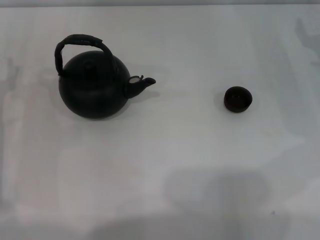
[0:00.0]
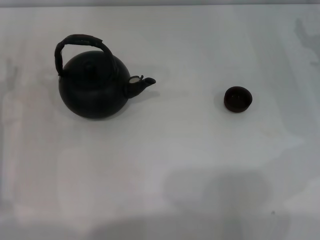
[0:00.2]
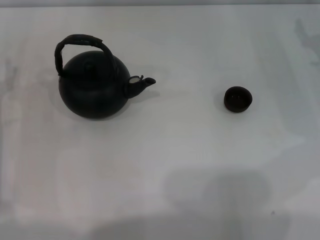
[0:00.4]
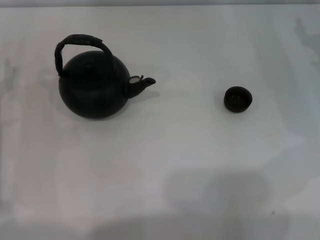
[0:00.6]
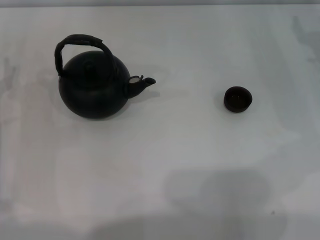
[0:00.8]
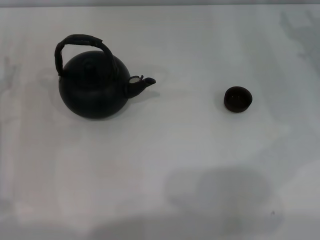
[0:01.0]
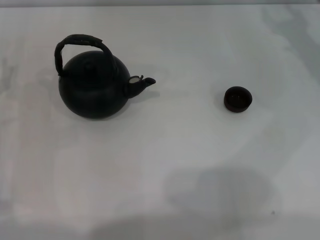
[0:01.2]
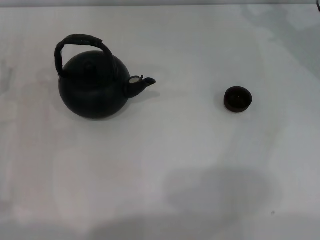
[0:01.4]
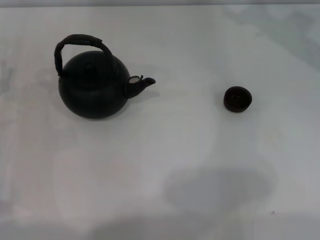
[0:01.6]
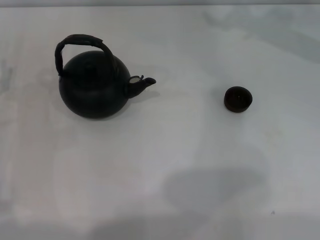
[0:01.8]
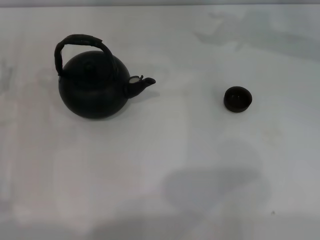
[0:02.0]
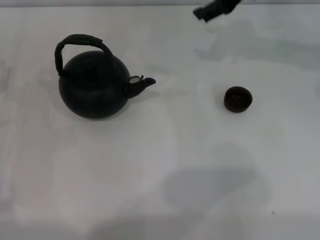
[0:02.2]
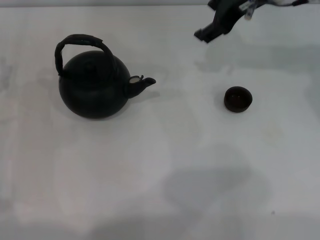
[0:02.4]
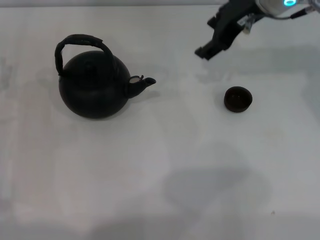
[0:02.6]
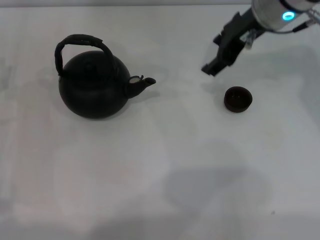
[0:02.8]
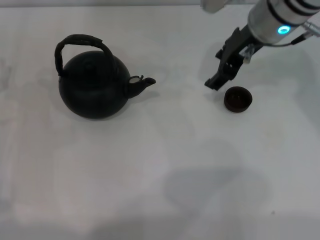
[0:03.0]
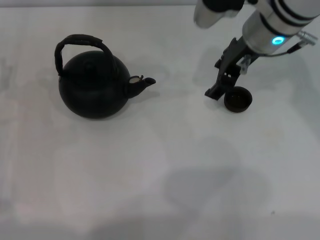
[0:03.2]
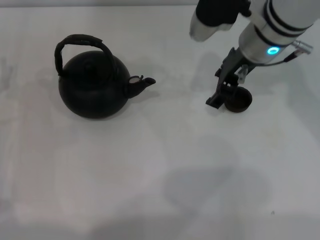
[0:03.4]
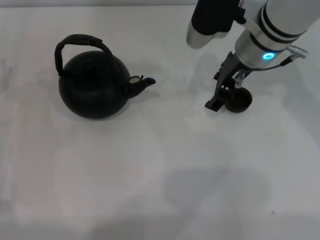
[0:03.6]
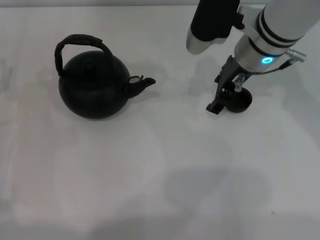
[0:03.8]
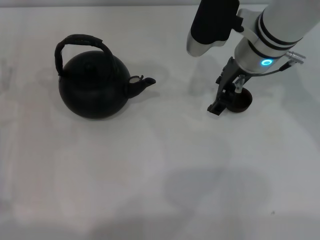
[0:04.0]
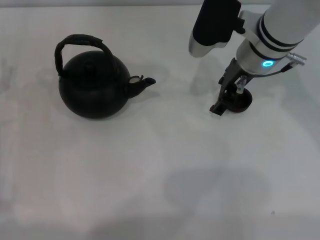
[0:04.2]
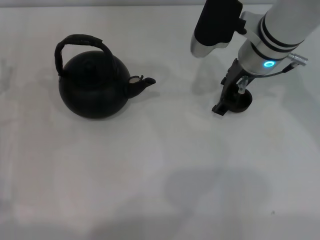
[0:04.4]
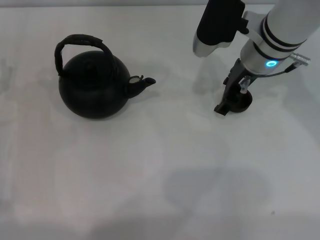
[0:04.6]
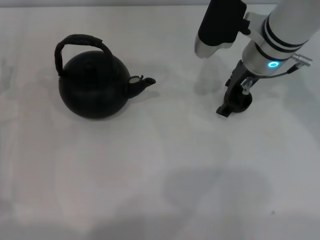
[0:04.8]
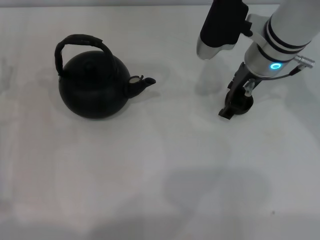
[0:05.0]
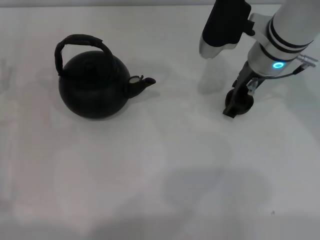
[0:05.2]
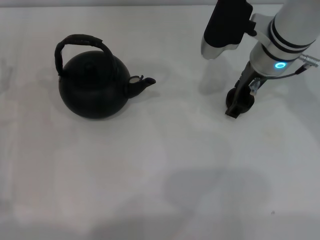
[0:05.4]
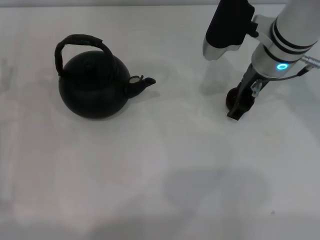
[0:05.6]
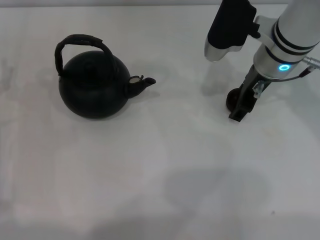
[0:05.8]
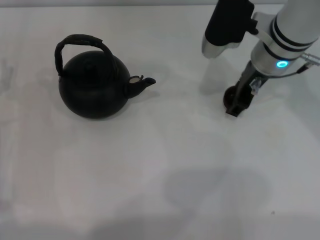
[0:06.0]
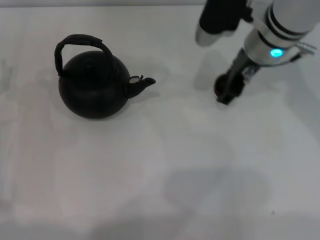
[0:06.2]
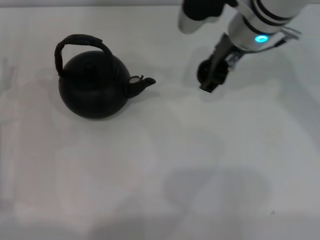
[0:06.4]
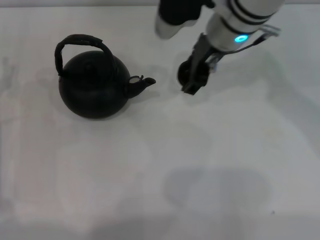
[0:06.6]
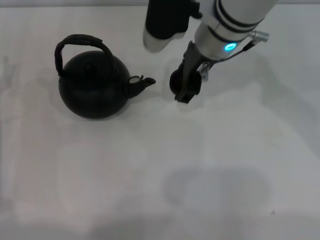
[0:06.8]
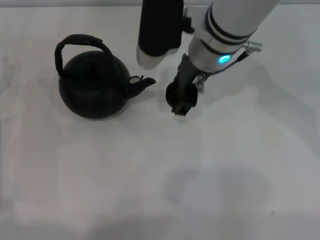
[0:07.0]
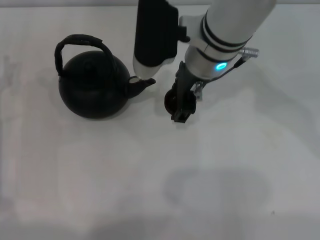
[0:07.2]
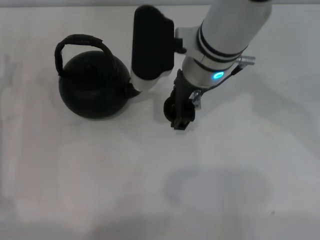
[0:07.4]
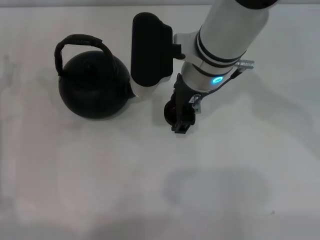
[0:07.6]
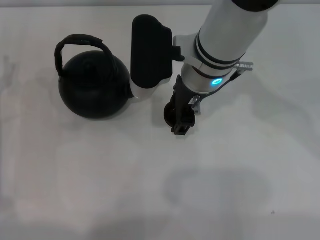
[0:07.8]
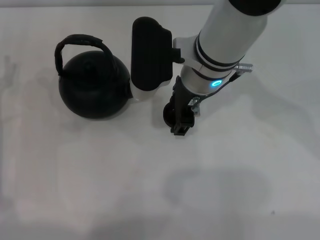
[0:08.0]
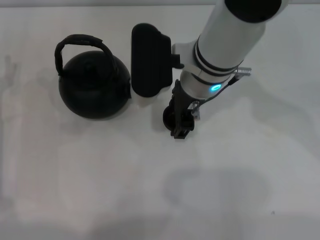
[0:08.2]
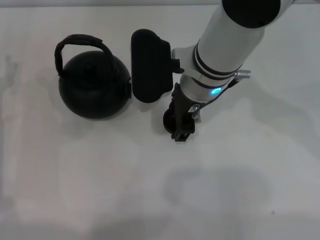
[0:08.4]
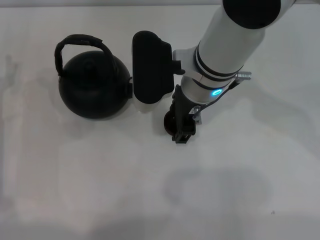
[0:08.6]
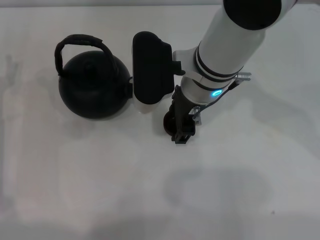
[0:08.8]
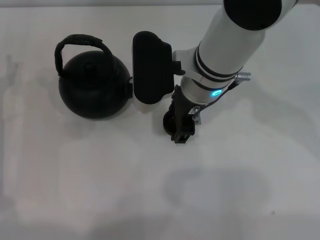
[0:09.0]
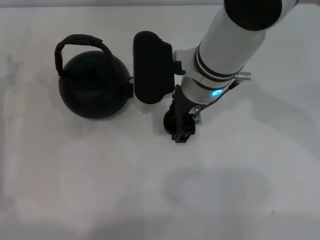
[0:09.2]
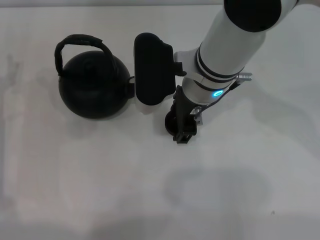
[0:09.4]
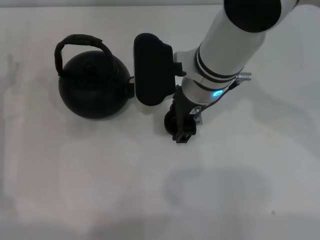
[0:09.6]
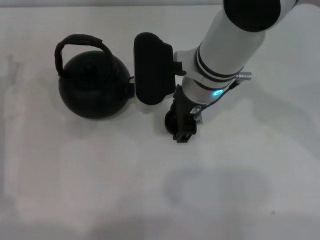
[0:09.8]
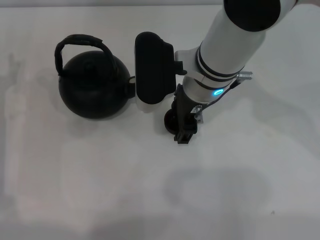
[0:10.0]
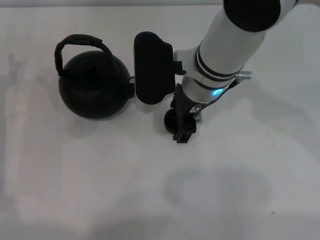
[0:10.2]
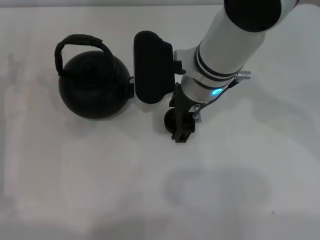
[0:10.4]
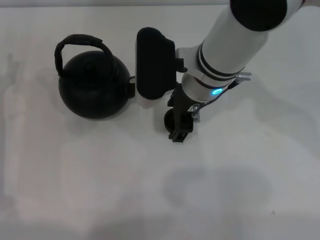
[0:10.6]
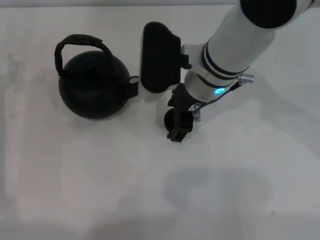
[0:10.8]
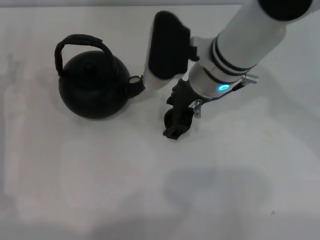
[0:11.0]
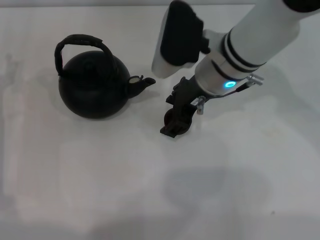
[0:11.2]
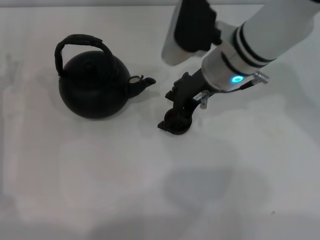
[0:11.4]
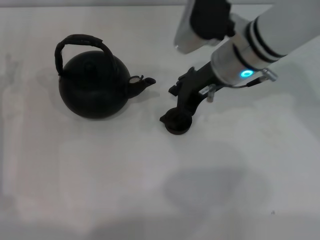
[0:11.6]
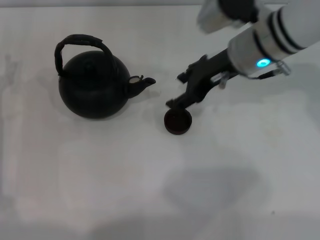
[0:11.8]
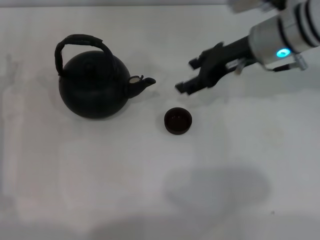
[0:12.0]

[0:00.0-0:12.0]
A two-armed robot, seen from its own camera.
Task of the whole recording: Grasp the handle of the teapot with one hand and pour tea into the teacup.
Step, 0:00.0 to 0:06.0: Pick up the teacup with the right gripper.
Step, 0:06.4 to 0:11.8: Place the teacup in the center of view with the right gripper.
0:01.6 to 0:03.0: The right gripper goes some 10 cm to the left and backward.
0:03.0 to 0:04.4: The right gripper goes roughly 5 cm downward.
0:04.4 to 0:06.0: The grippers stay close to where they were, moving slightly.
0:06.0 to 0:07.6: The right gripper goes approximately 10 cm to the left, and closes its fingers.
0:07.6 to 0:09.0: The grippers make only small movements.
0:09.0 to 0:10.4: The right gripper opens.
0:10.4 to 0:12.0: The right gripper is displaced to the right by some 10 cm.

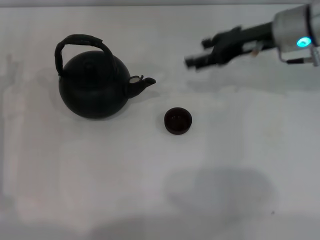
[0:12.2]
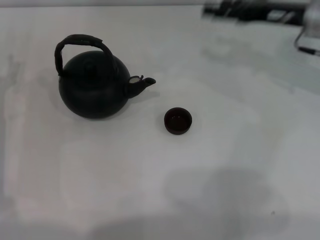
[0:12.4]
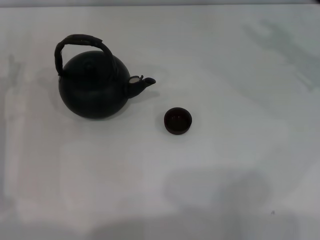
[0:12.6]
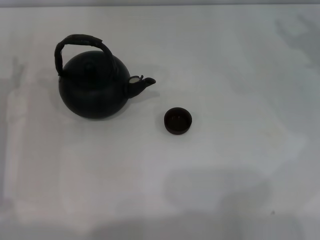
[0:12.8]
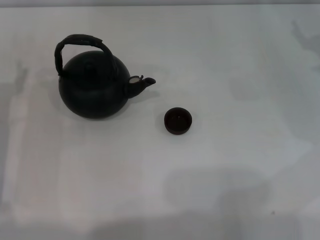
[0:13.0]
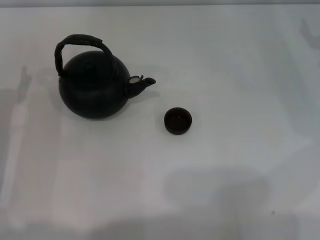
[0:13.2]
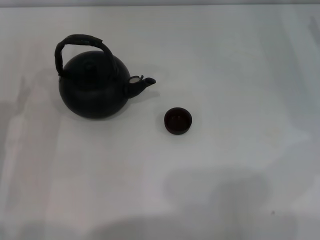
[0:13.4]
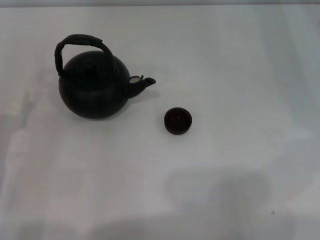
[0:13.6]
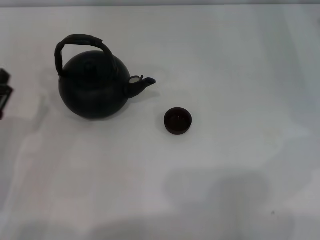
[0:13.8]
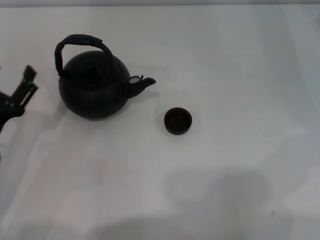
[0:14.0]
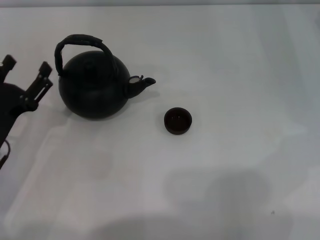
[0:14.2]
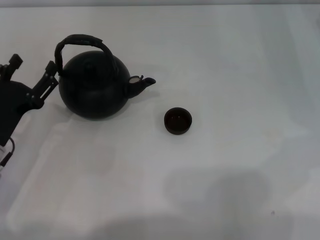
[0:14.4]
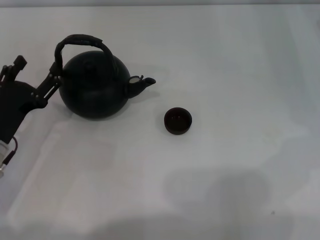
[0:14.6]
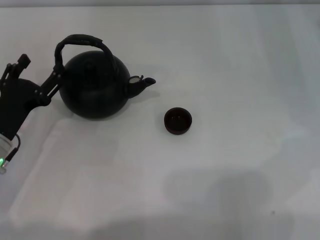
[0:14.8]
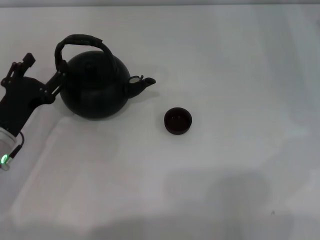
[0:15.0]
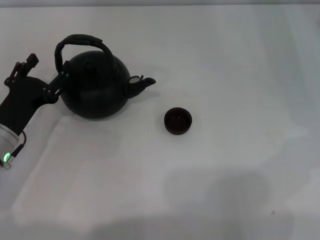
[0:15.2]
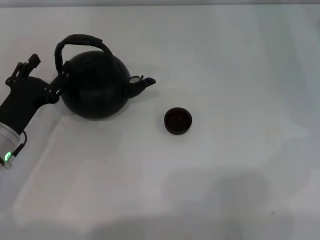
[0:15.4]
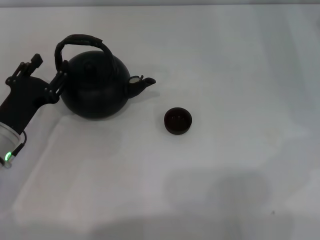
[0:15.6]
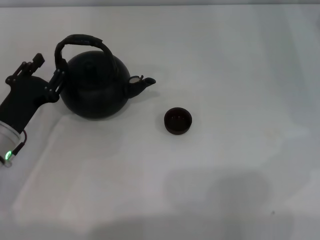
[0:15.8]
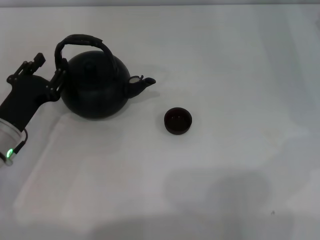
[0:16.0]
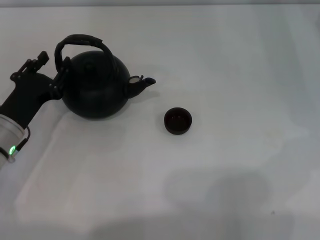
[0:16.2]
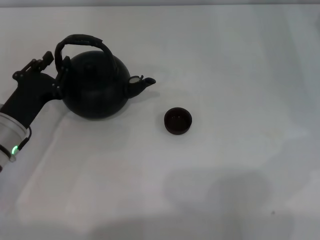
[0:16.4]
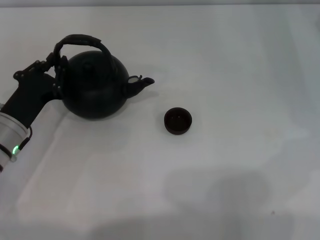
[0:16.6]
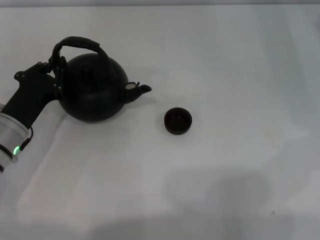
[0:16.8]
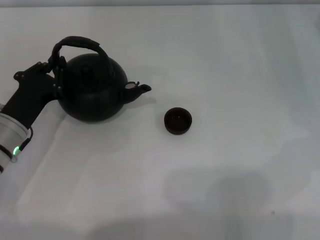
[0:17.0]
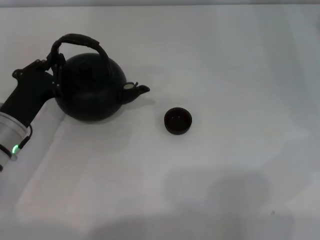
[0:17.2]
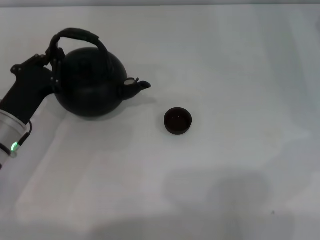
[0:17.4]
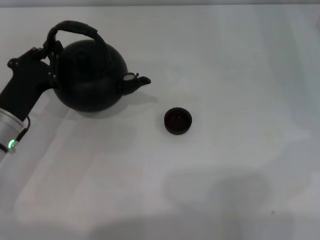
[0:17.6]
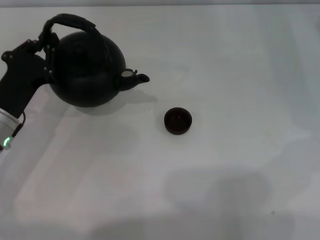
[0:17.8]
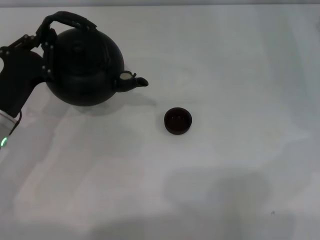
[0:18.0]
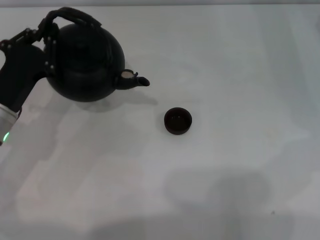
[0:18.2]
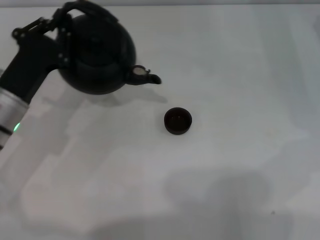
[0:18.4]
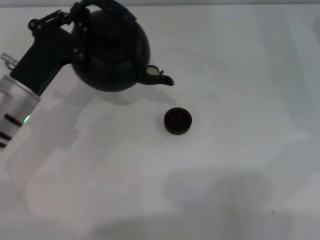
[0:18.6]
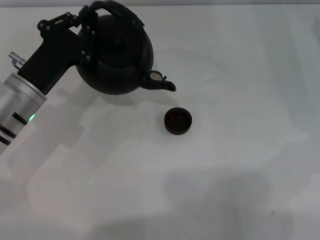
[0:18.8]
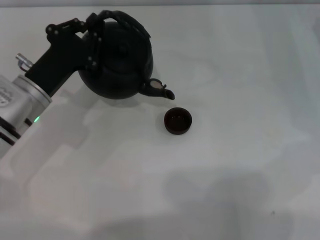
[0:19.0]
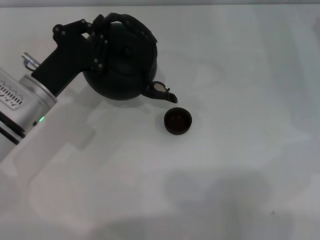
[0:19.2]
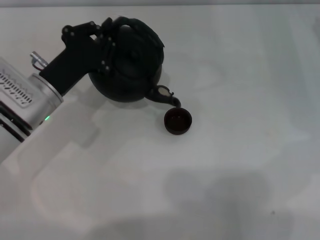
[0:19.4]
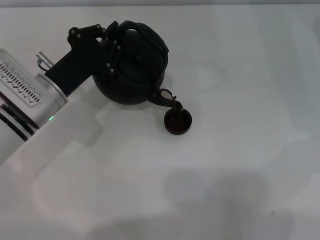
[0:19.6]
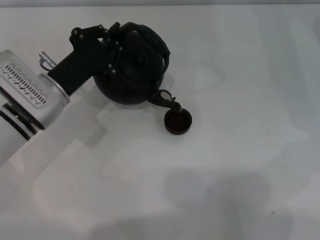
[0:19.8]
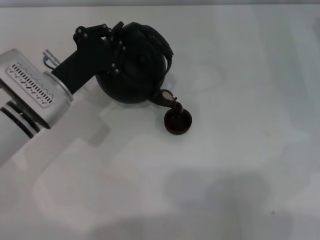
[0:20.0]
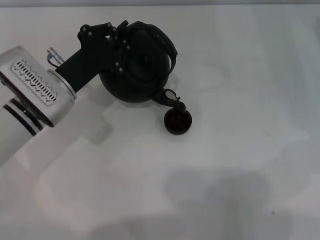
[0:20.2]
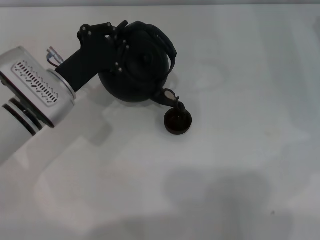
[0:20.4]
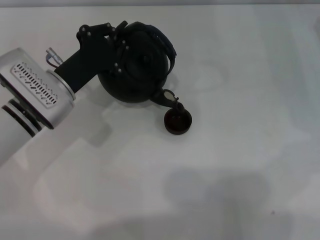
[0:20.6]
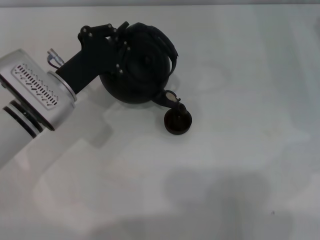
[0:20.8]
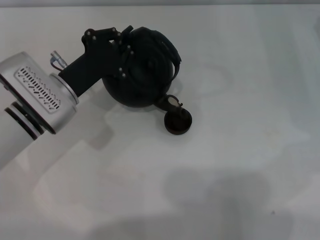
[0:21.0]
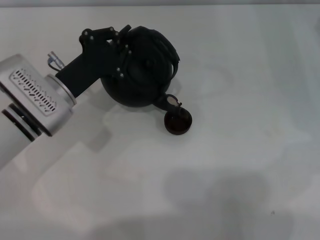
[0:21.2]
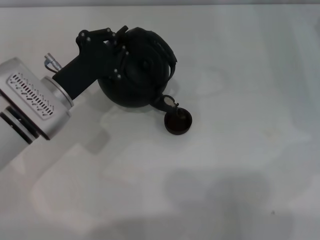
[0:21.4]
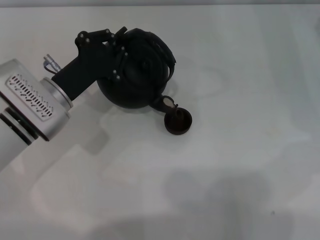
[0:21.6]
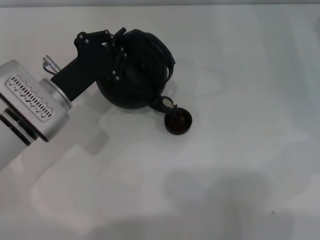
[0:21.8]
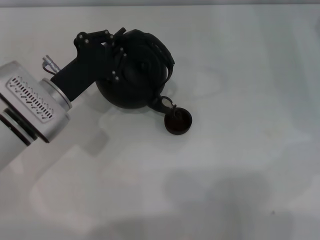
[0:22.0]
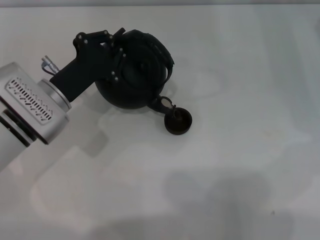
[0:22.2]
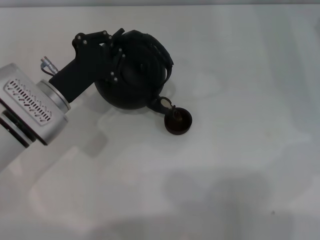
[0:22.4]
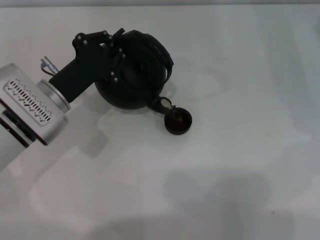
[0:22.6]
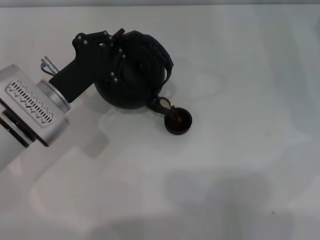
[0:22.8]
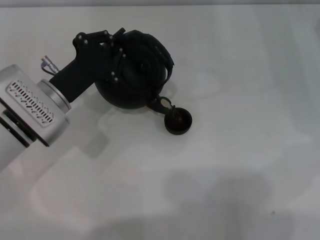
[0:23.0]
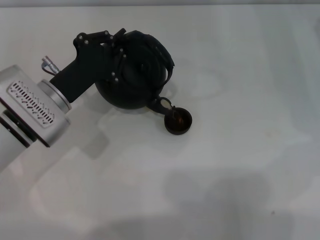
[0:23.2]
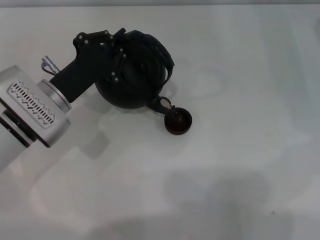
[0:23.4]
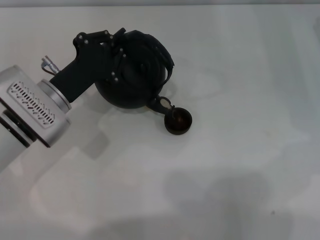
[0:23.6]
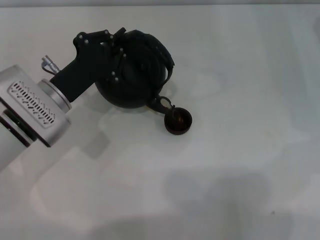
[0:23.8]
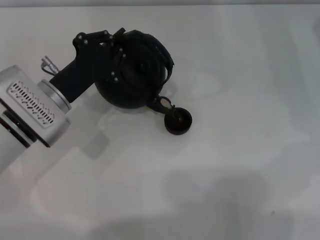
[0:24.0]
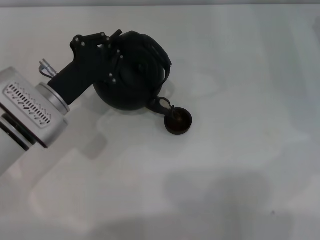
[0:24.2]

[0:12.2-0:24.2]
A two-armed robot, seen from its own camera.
Task of the whole recording: Grasp the handle of the teapot with one hand and pour tea into the teacup.
Step, 0:12.2 to 0:17.6: Pick up the teapot with the left gripper.
0:12.2 to 0:13.8: The right gripper travels to the right by some 15 cm; the left gripper heads backward, covering approximately 10 cm.
0:13.8 to 0:15.2: The left gripper moves forward, roughly 5 cm.
0:15.2 to 0:16.6: The left gripper closes up.
0:16.6 to 0:18.2: The left gripper closes its fingers.
0:18.2 to 0:19.8: The left gripper moves to the right, about 5 cm.
0:19.8 to 0:21.2: Both grippers stay put.
0:21.2 to 0:22.6: Both grippers stay put.
0:22.6 to 0:24.2: The two grippers keep their place.
